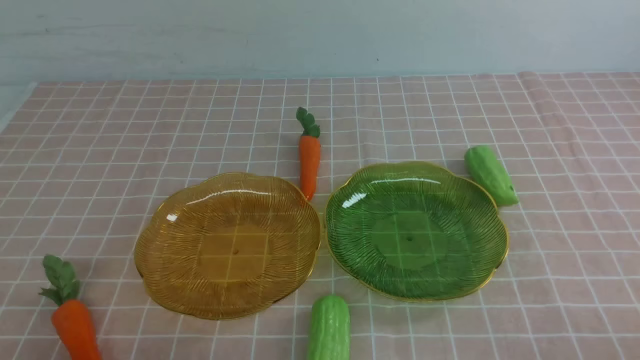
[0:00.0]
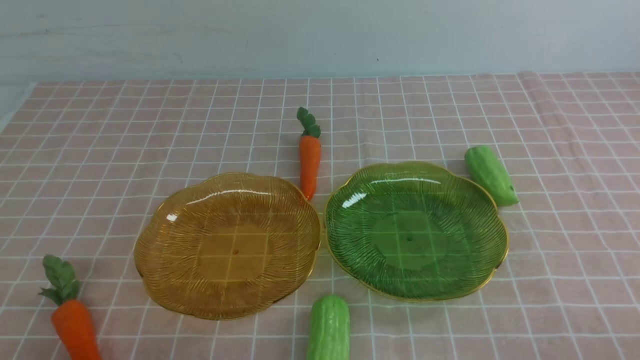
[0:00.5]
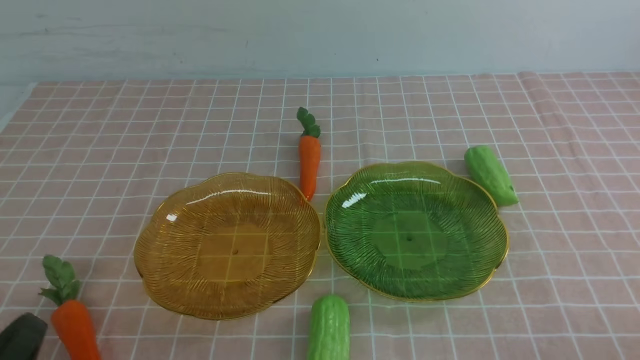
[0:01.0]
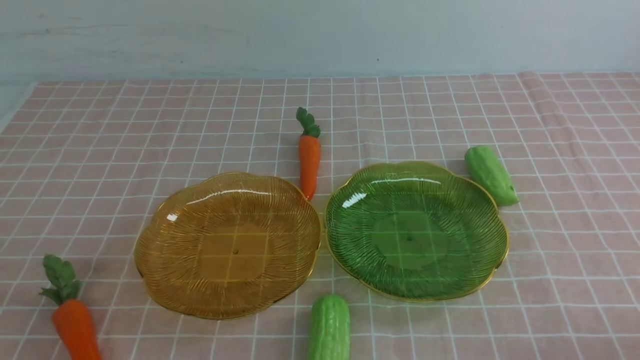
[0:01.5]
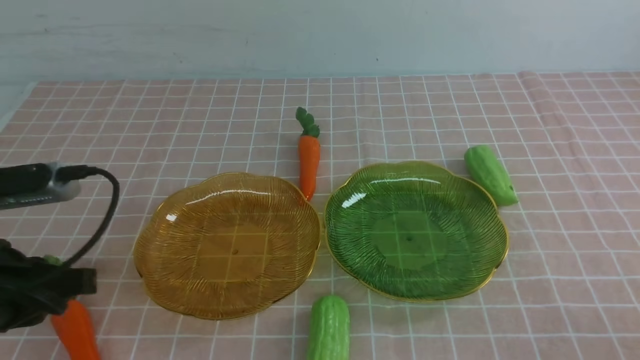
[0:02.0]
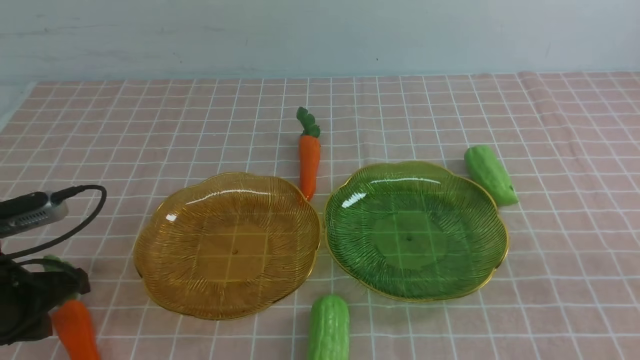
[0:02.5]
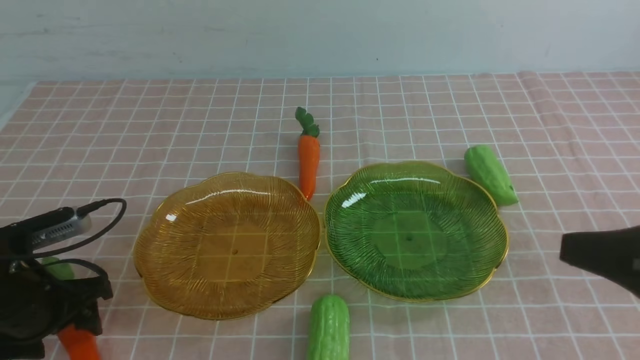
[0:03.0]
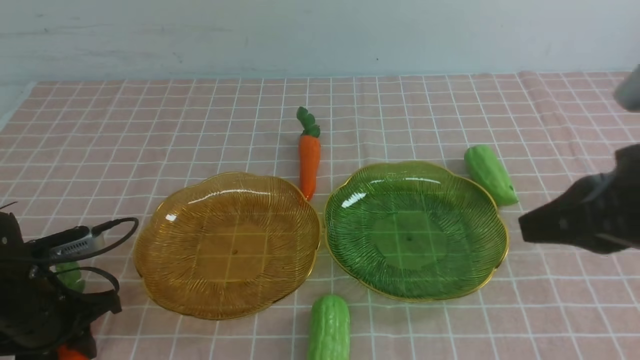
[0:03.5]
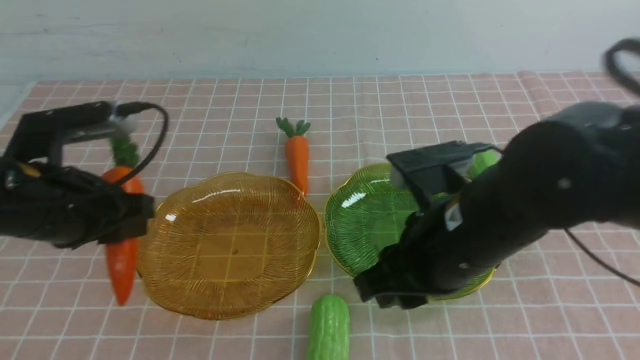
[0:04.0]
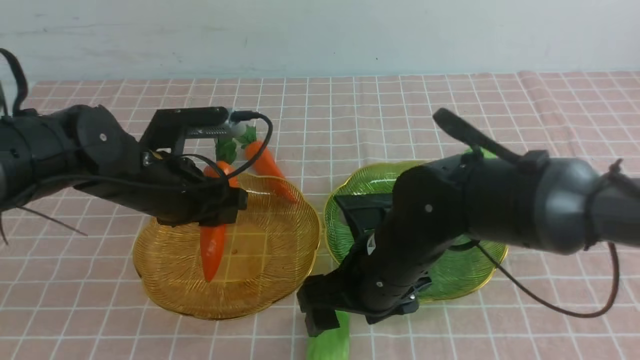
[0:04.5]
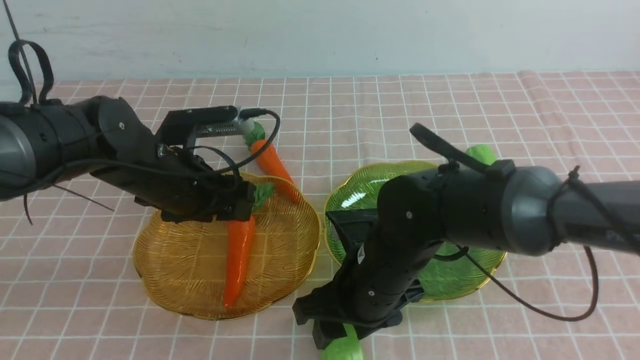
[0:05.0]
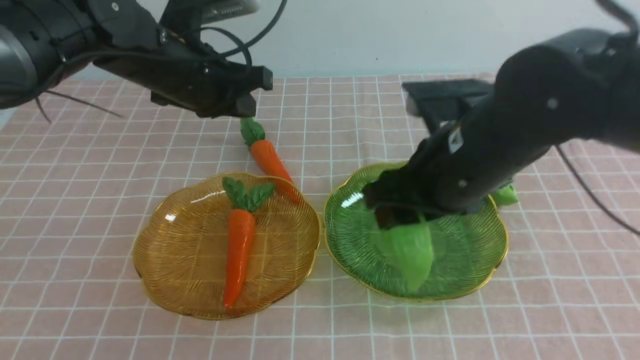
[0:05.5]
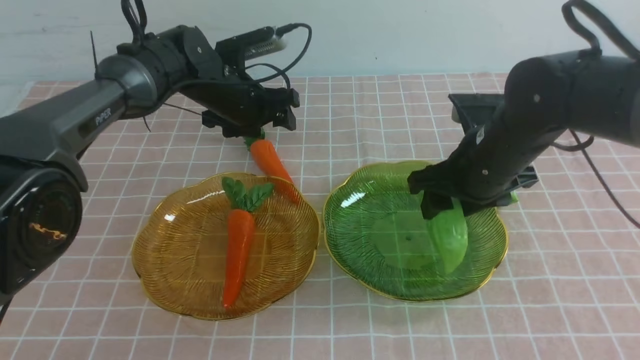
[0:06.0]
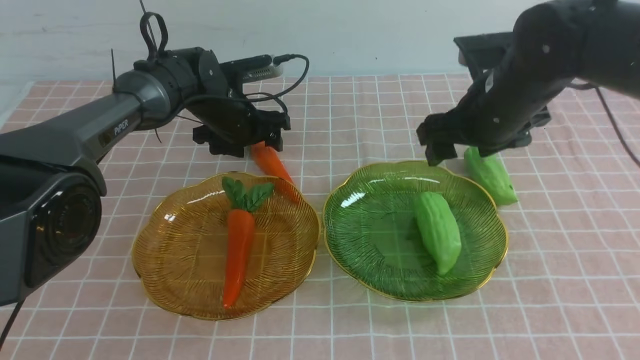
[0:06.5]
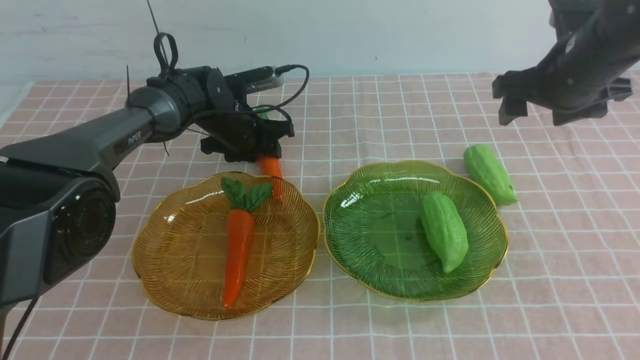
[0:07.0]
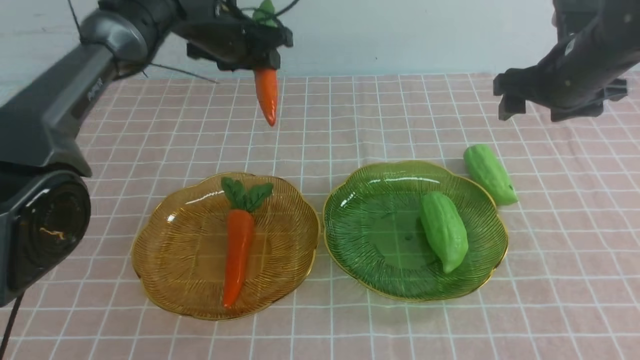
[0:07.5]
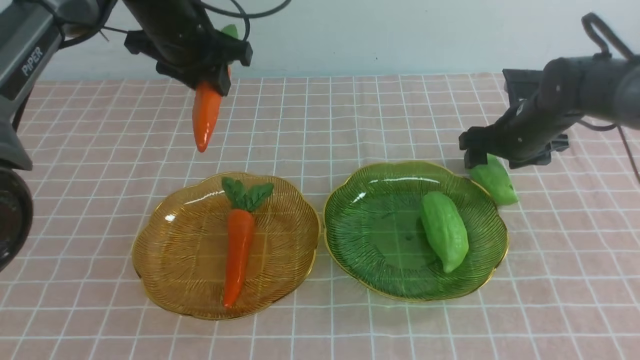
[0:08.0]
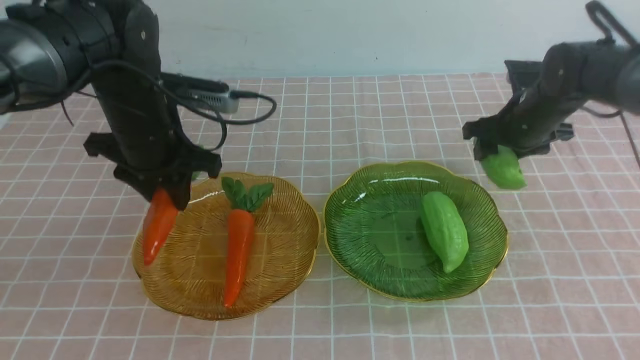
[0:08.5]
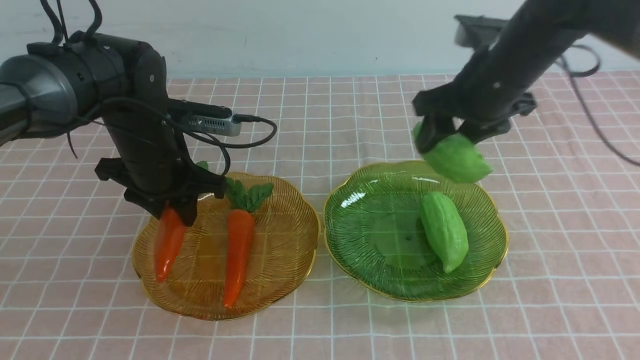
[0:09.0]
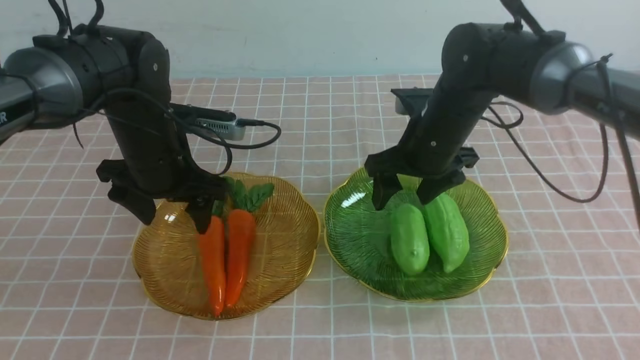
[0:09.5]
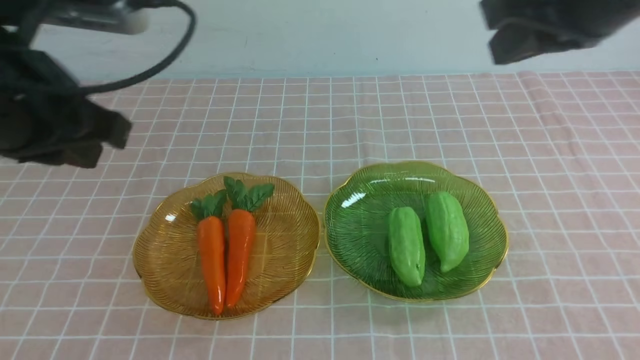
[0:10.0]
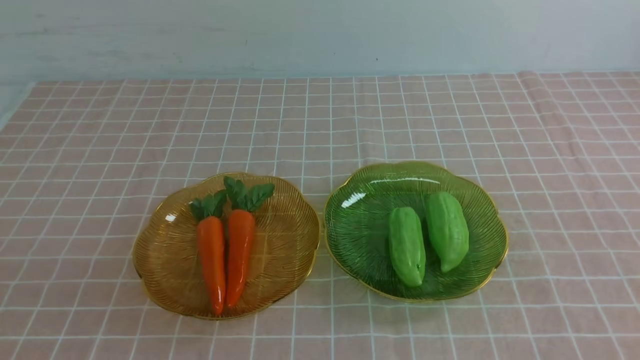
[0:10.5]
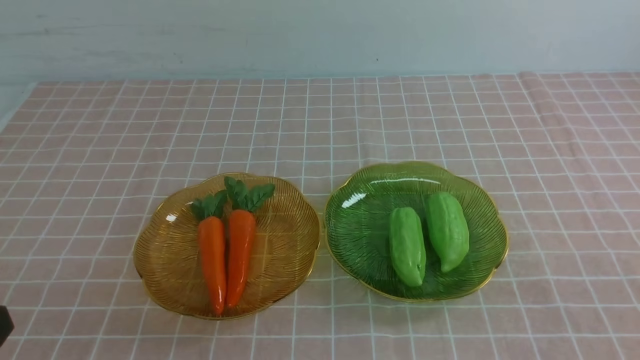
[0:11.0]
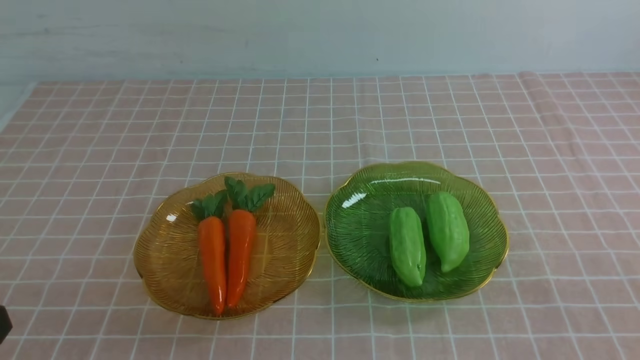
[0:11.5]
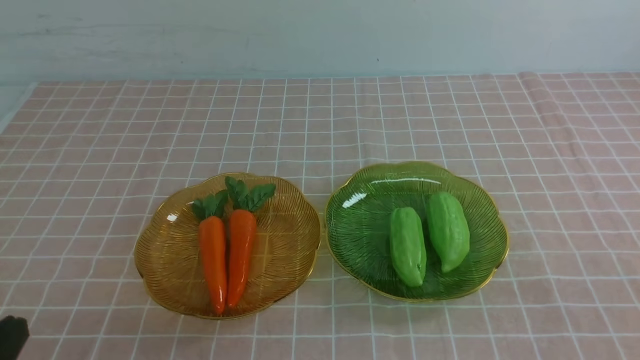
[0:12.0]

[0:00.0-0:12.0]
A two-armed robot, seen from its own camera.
Step, 0:00.0 to 0:04.5: use the left arm to grab a carrot and put it into the left plate.
Step, 0:05.0 to 0:06.0: use the right arm to grab a chayote and put it into the right plate.
Step, 0:06.5 to 0:09.0: use the left arm to grab a carrot and put it into the left plate.
0:00.0 to 0:02.0: The left gripper travels forward and upward by roughly 15 cm.
0:02.0 to 0:04.0: The right gripper heads to the left and forward, covering about 25 cm, and opens up. Meanwhile the left gripper goes some 10 cm forward, reaches approximately 10 cm downward, then returns, and opens up.
0:04.0 to 0:06.0: The right gripper moves forward, approximately 10 cm, and opens up, while the left gripper heads forward and to the right, covering roughly 25 cm, and opens up.
0:06.0 to 0:08.0: The right gripper travels forward, to the right and downward by some 15 cm, while the left gripper travels backward and upward by some 10 cm, and closes.
0:08.0 to 0:10.0: The left gripper heads backward, covering some 25 cm, and closes up, while the right gripper travels backward and upward by about 40 cm, and closes up.
0:10.0 to 0:12.0: The left gripper goes some 20 cm downward and backward. Meanwhile the right gripper goes roughly 20 cm backward, downward and to the right.

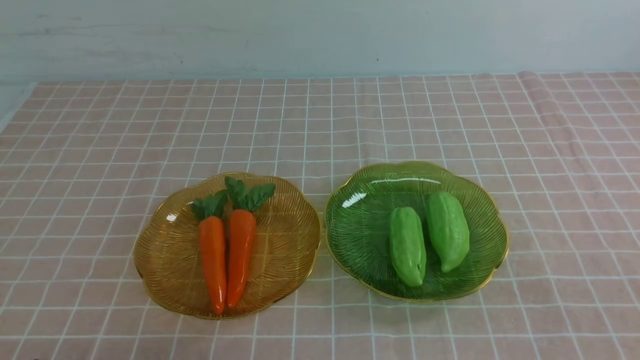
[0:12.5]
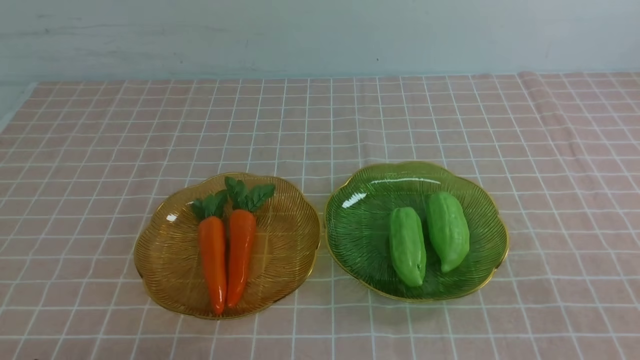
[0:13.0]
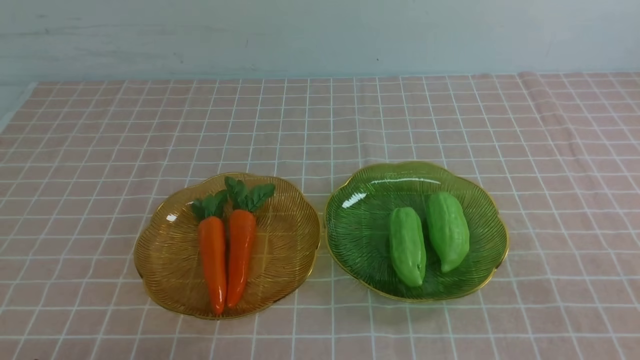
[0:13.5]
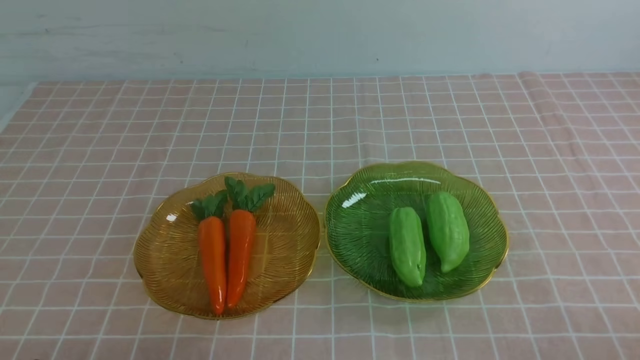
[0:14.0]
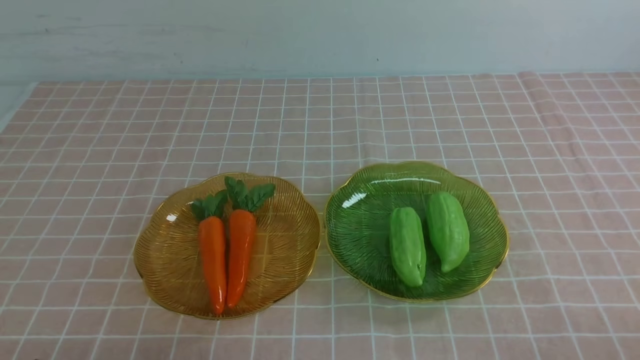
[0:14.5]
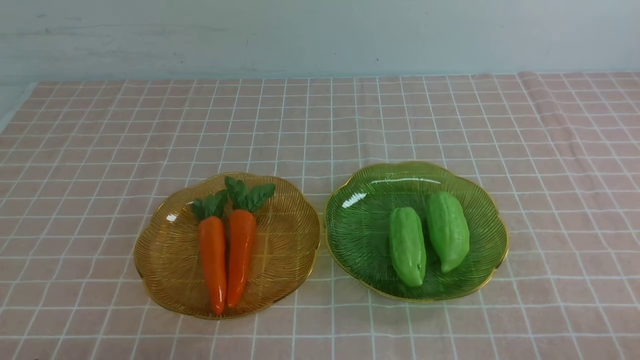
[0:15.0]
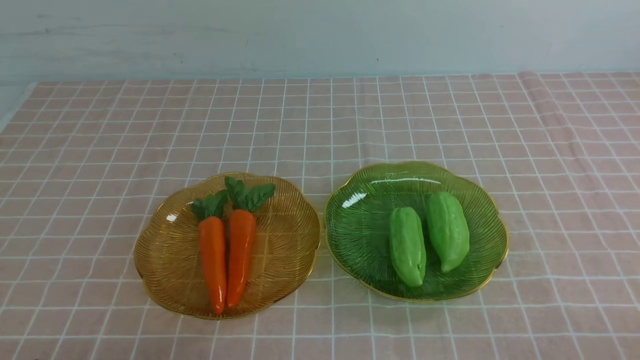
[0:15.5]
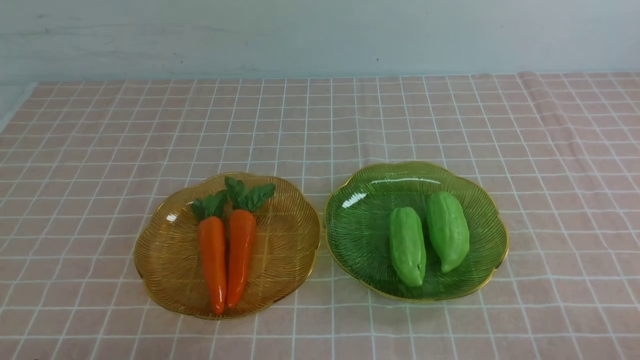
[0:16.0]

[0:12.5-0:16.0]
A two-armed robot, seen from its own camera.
0:14.5 to 0:16.0: Neither gripper changes place.
